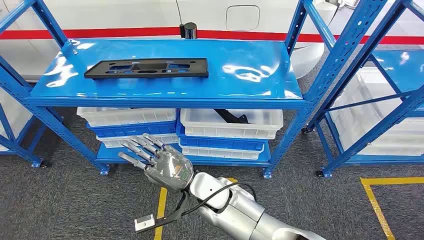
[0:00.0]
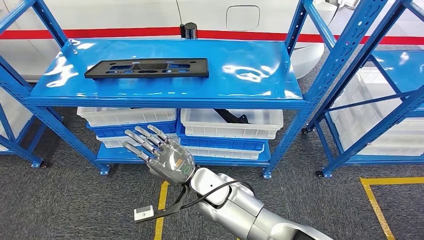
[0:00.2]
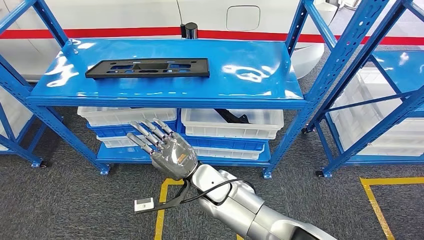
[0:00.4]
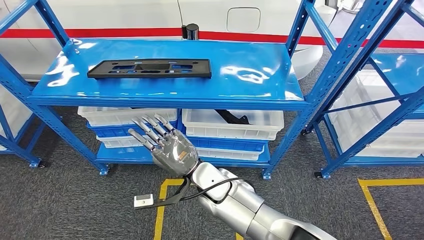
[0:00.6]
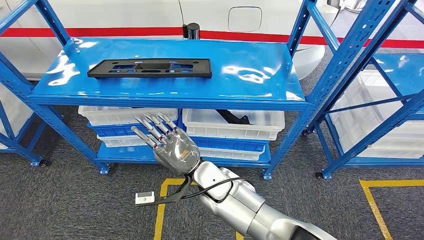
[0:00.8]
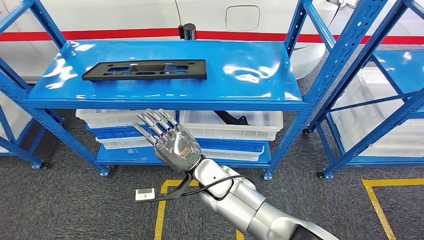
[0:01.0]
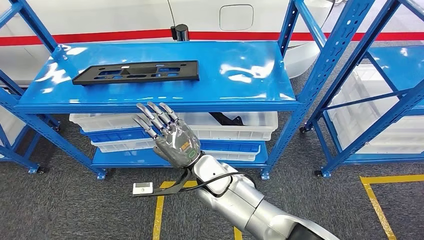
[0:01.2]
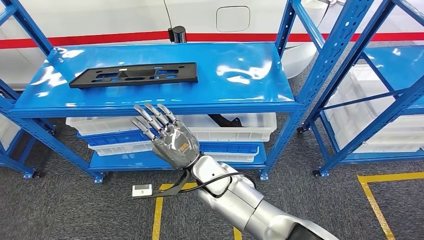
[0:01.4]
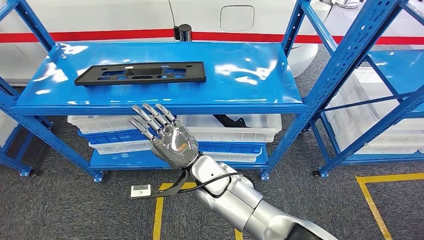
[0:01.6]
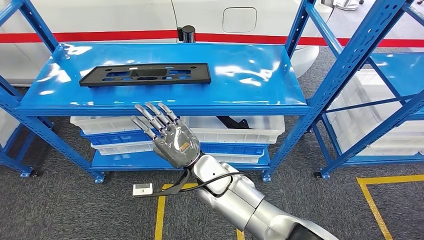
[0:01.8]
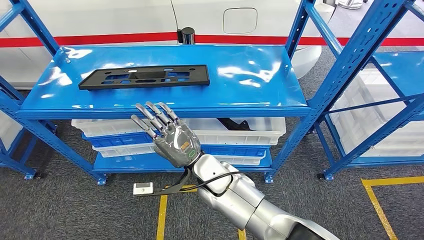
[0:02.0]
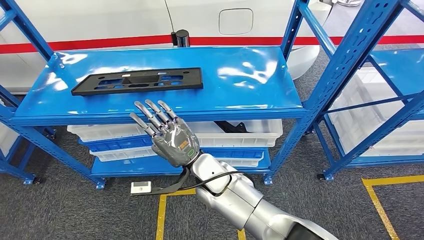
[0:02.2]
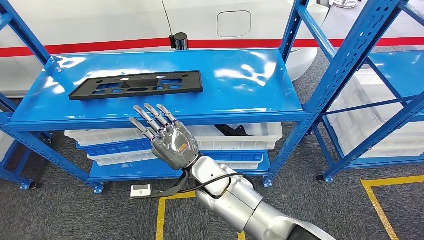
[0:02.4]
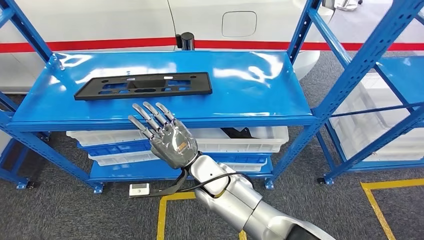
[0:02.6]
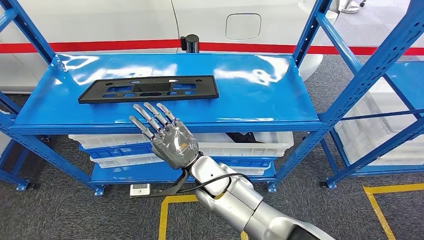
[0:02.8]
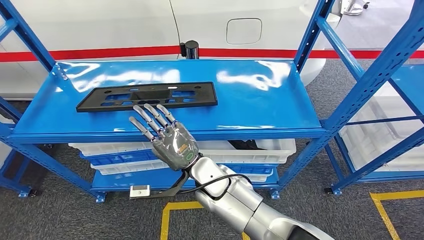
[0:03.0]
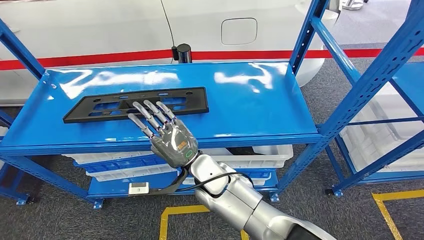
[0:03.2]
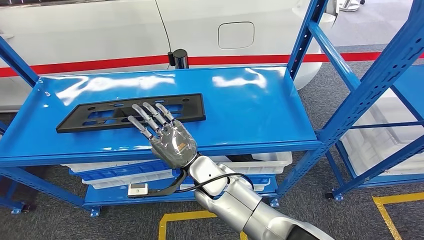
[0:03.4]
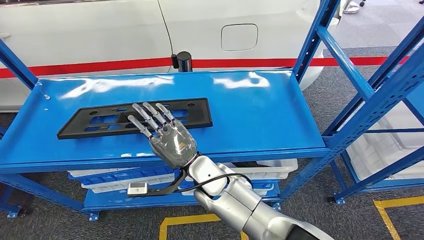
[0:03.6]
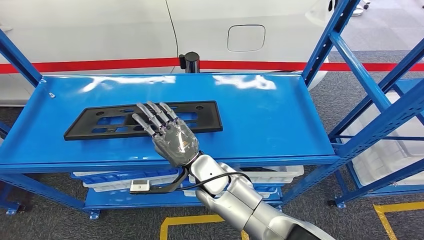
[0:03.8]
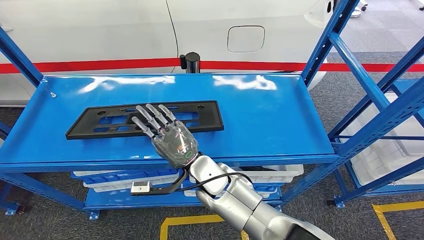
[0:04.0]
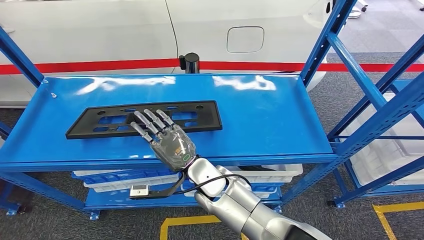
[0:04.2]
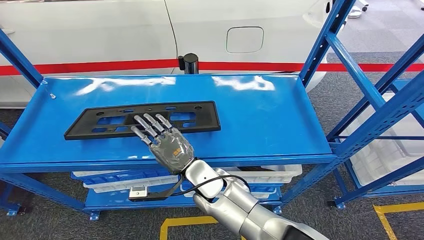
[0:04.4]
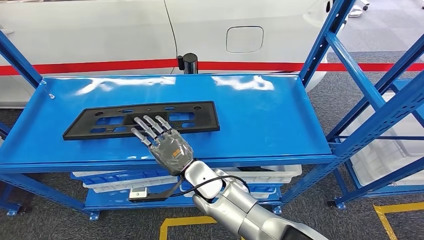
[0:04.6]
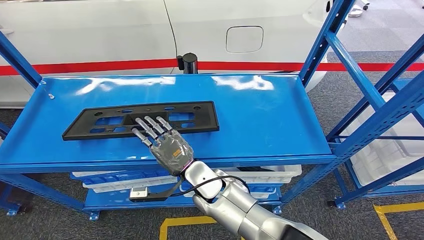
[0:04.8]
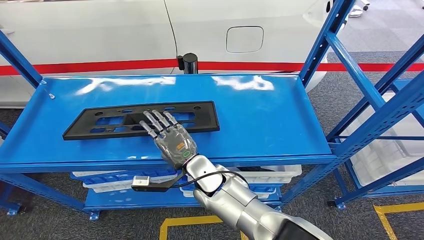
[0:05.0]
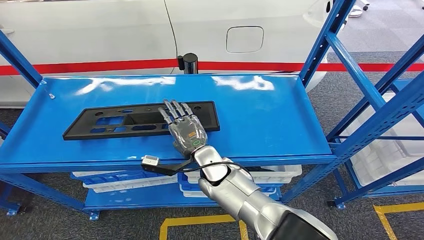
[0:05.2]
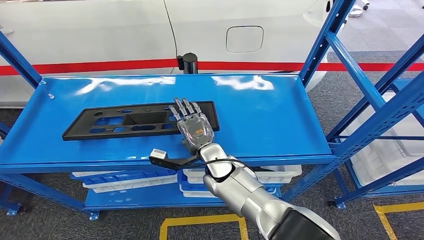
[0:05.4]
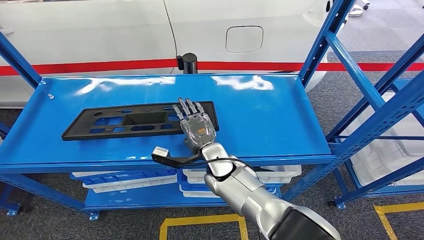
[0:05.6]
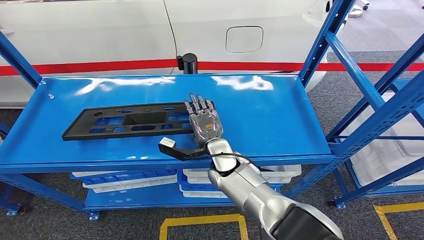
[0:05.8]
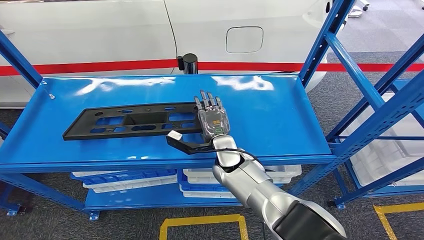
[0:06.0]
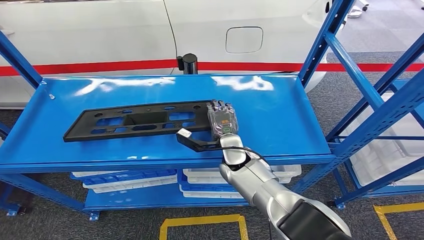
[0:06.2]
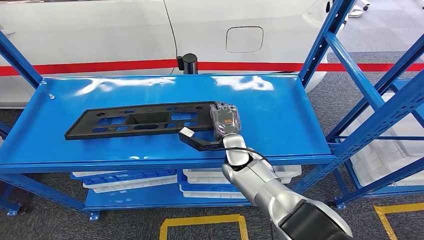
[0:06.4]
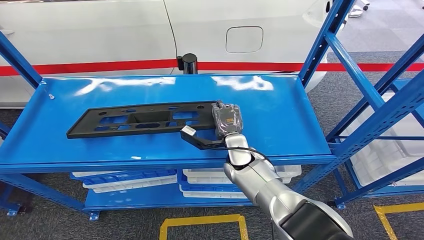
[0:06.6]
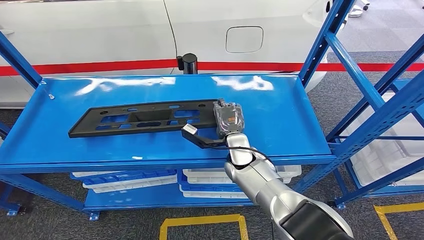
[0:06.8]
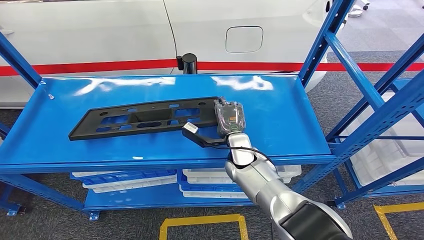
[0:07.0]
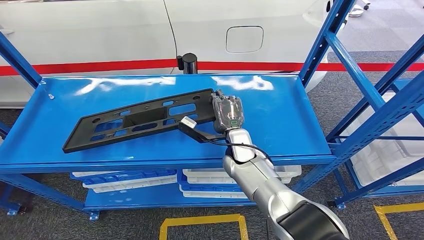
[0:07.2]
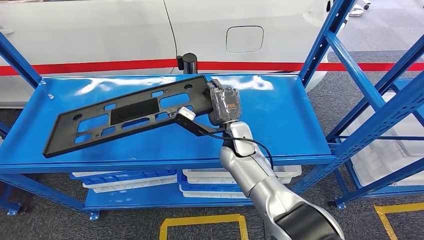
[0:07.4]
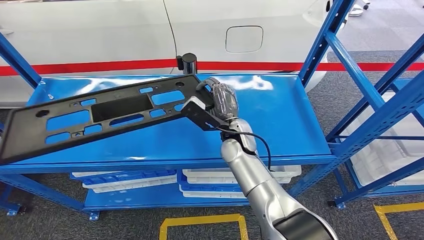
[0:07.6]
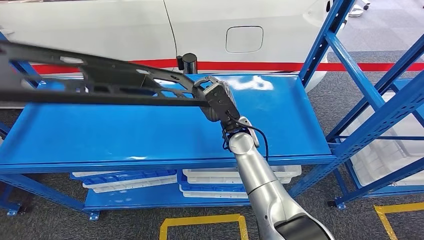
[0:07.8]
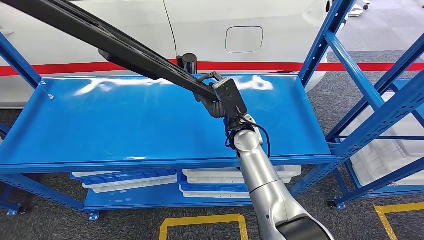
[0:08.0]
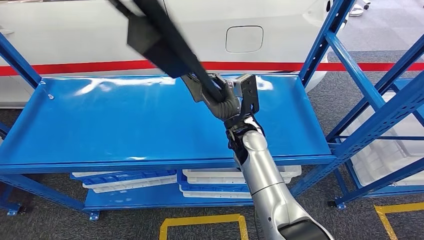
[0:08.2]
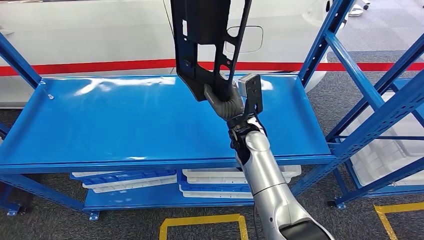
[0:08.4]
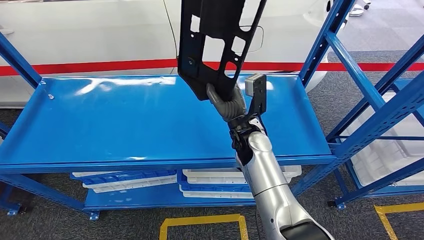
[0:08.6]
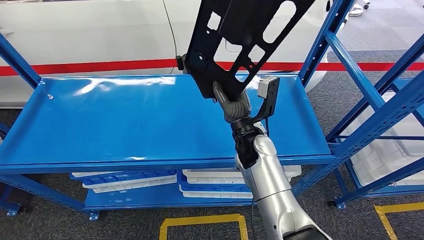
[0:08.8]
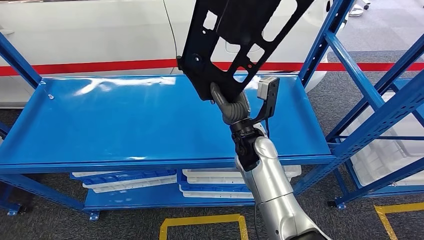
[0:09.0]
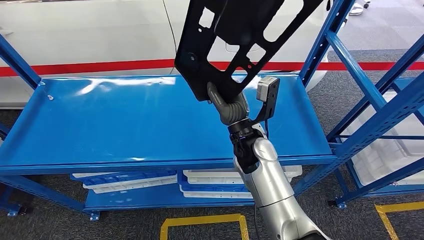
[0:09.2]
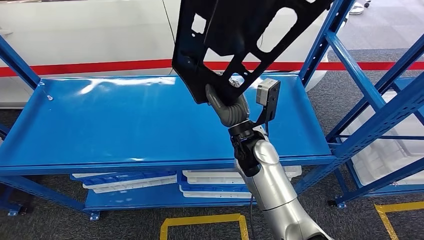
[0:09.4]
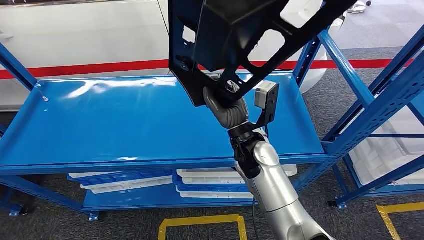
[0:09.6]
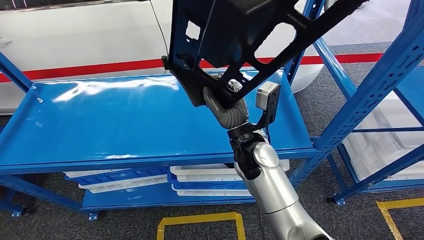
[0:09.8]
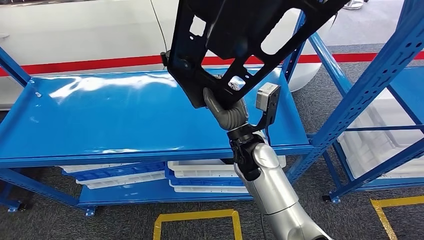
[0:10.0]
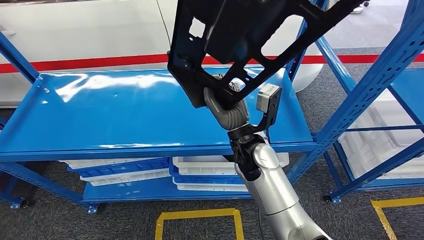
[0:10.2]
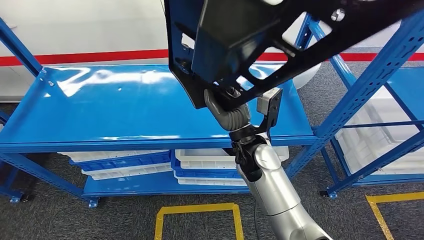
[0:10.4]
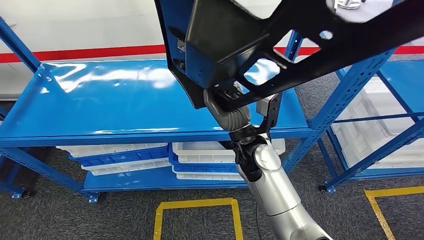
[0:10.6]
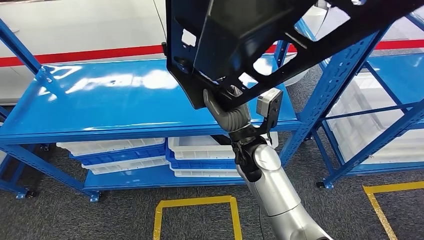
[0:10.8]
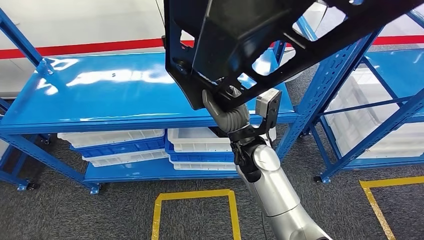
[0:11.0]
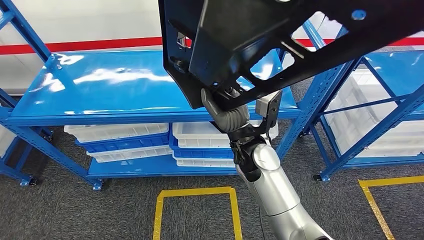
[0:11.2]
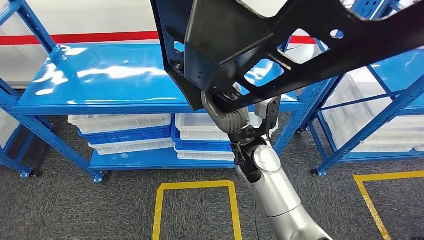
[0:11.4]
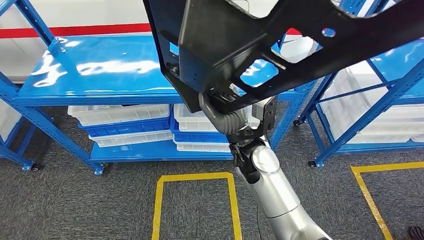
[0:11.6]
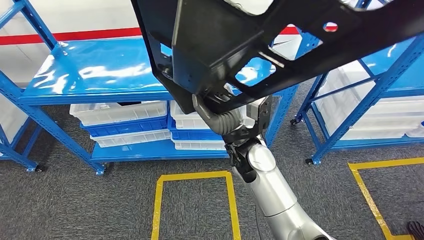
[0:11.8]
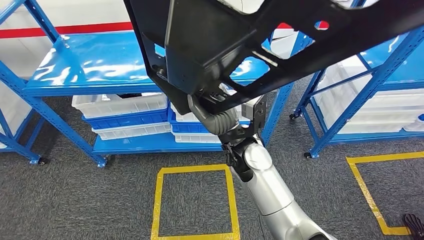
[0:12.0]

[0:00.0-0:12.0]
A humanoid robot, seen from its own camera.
Step, 0:00.0 to 0:11.2: Pick up the large material from the shelf.
0:04.4 to 0:06.0: The right hand moves to the right and forward, some 10 cm.

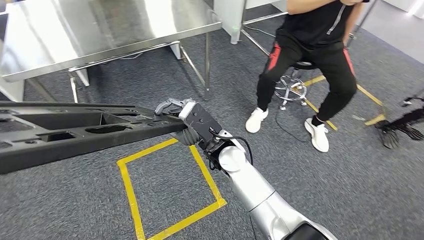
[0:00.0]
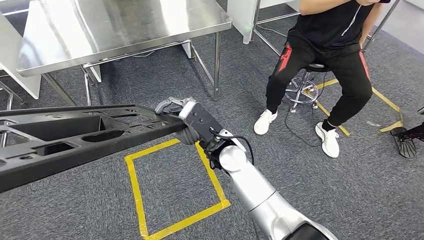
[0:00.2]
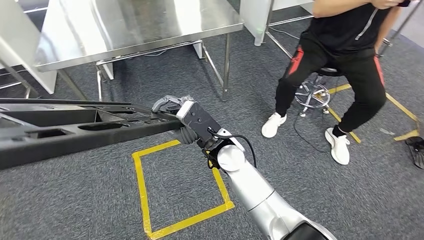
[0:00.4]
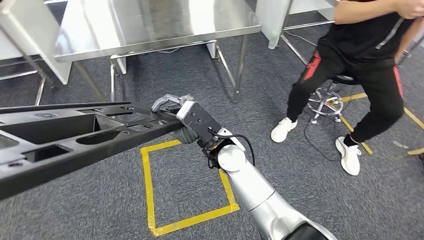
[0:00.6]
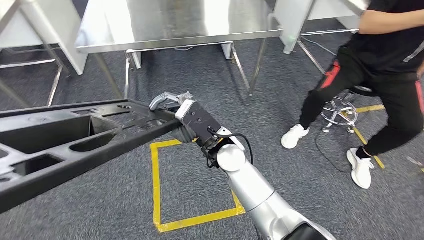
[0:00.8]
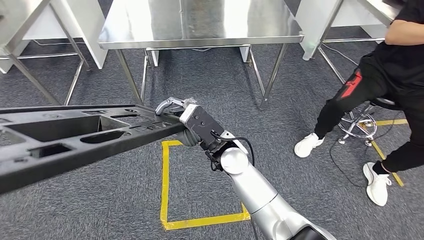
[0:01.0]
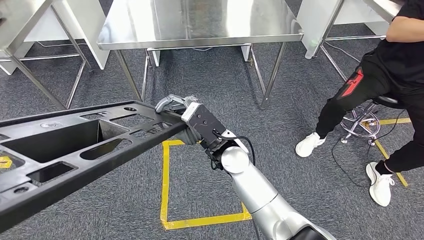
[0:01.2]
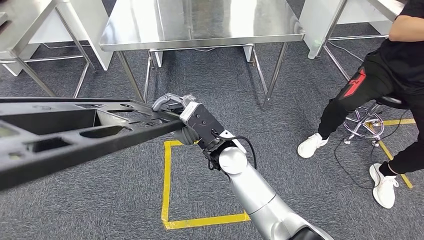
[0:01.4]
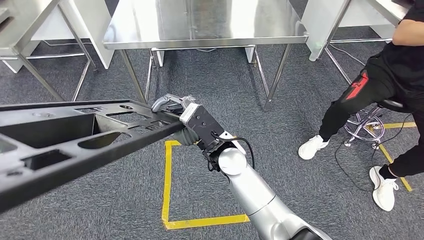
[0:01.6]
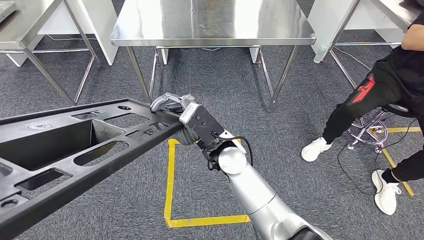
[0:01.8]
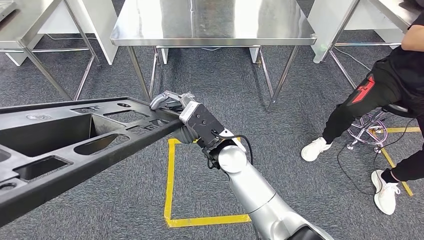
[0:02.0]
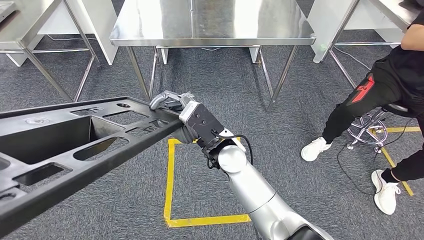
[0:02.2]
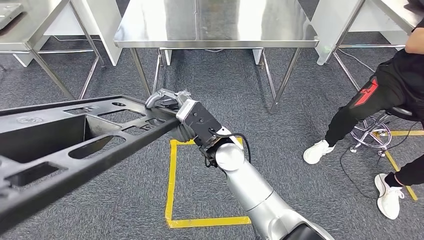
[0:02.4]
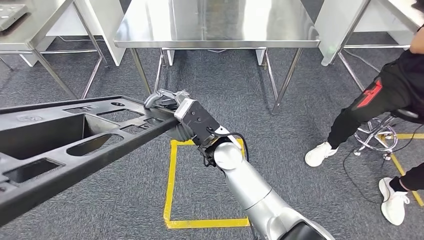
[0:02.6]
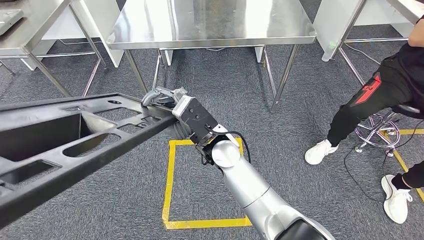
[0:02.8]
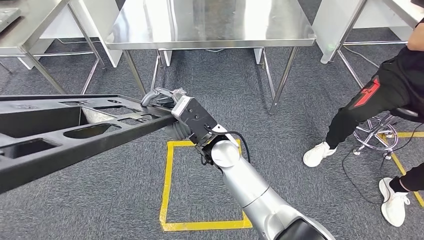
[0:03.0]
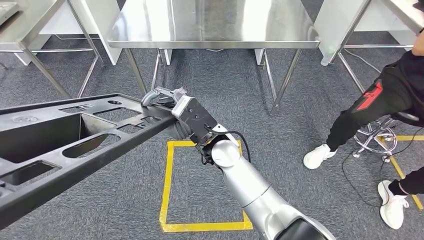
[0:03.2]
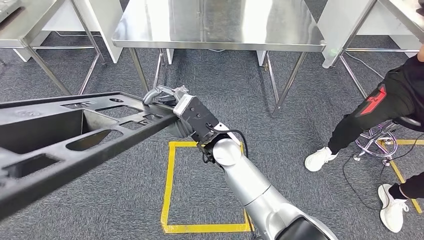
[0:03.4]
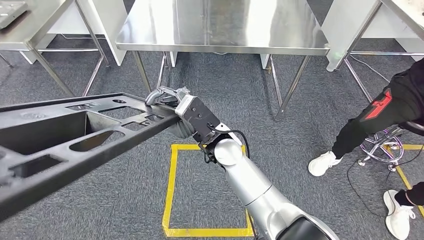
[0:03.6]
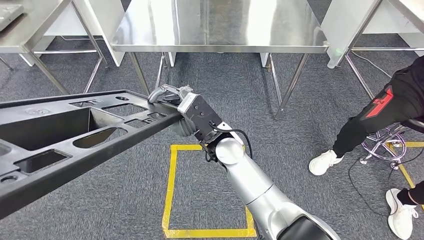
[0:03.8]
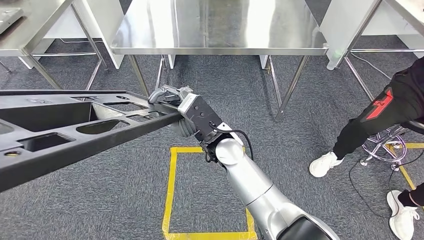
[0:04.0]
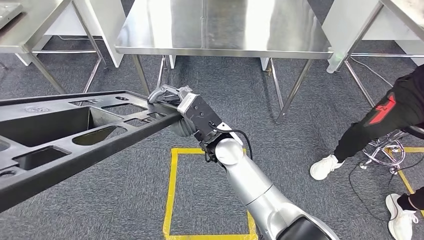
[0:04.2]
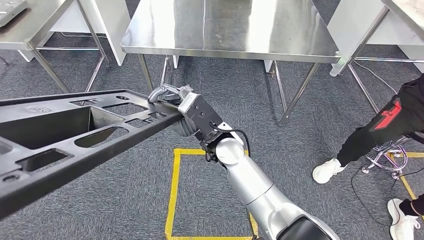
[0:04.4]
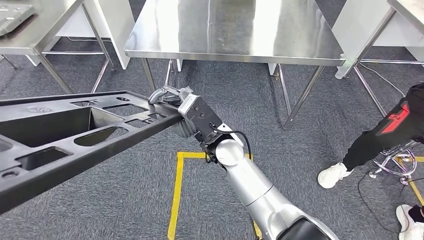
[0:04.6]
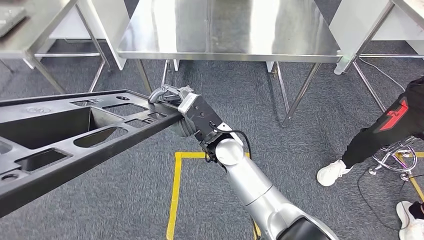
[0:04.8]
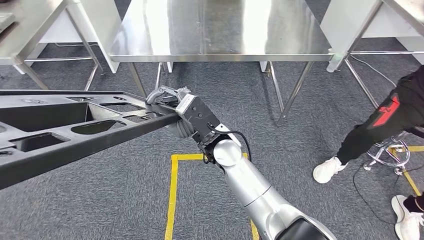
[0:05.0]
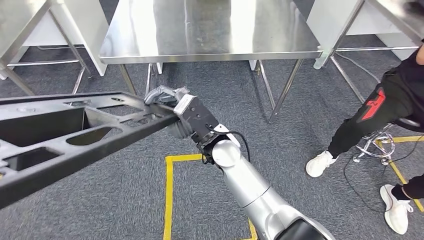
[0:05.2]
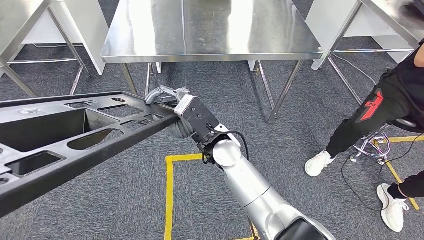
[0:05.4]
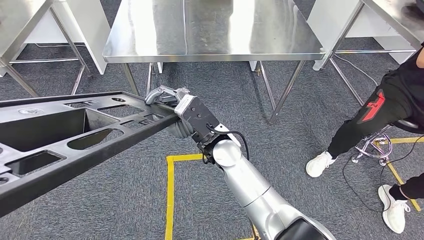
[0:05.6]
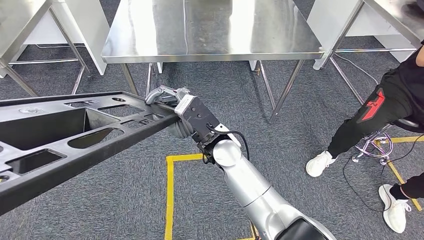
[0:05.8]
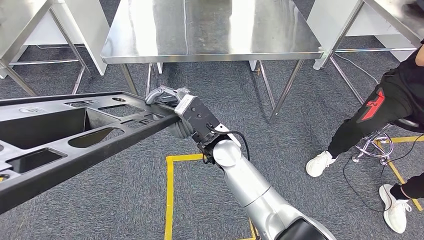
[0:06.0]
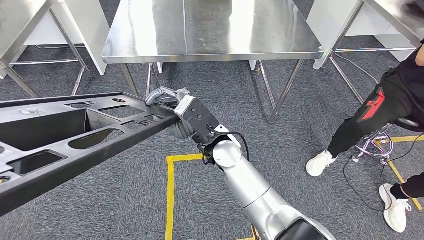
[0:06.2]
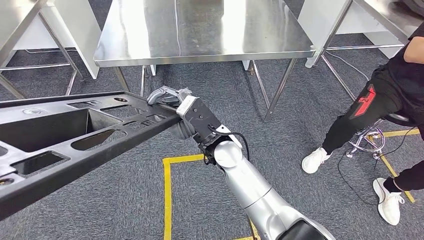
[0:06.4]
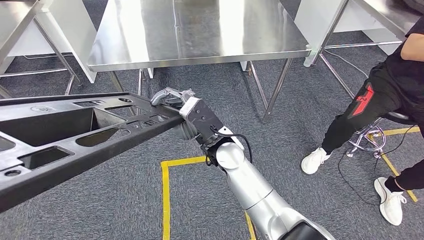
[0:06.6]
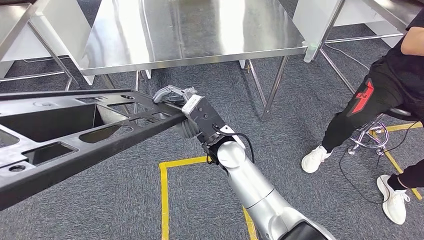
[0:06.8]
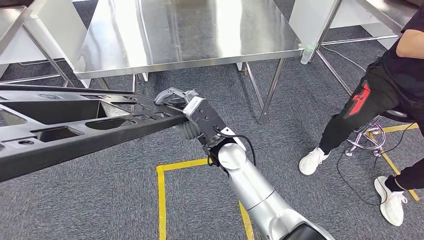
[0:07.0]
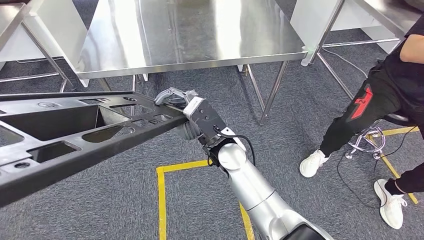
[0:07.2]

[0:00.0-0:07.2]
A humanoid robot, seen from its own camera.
Step, 0:00.0 to 0:06.2: Move the large material to the workbench.
